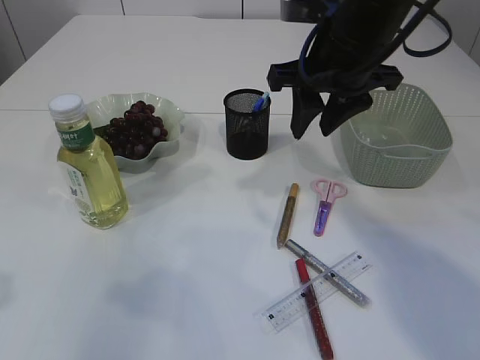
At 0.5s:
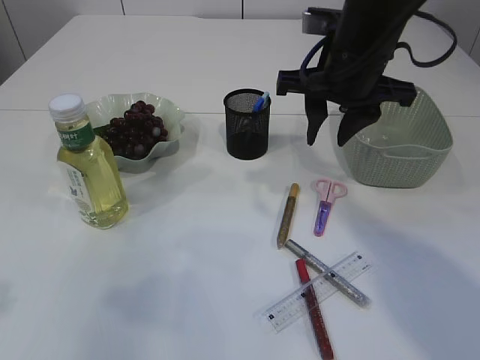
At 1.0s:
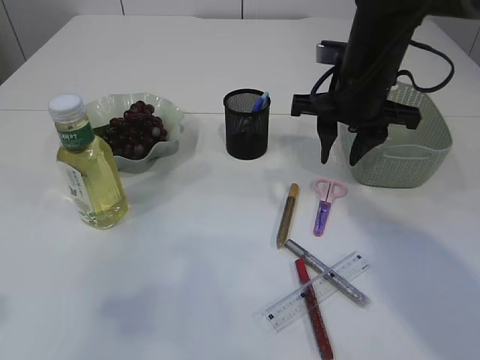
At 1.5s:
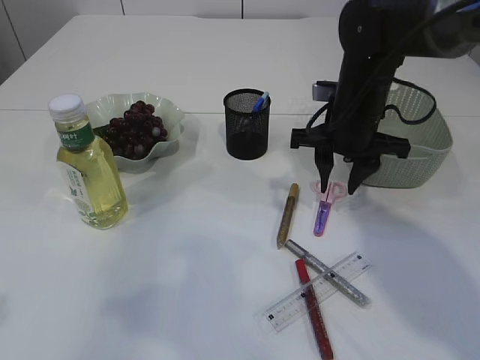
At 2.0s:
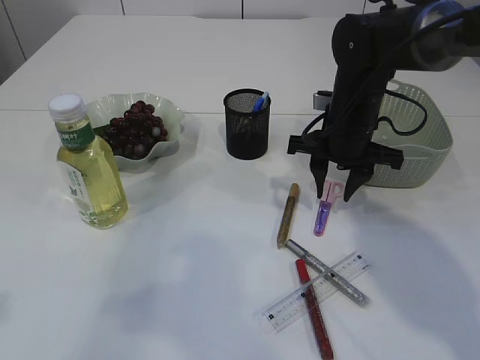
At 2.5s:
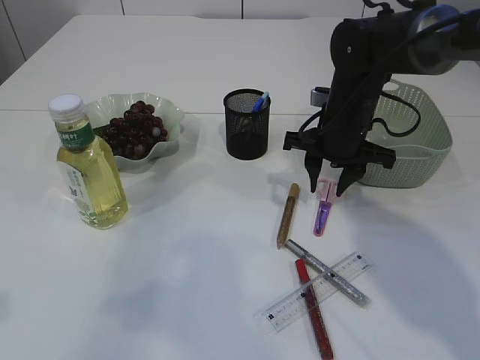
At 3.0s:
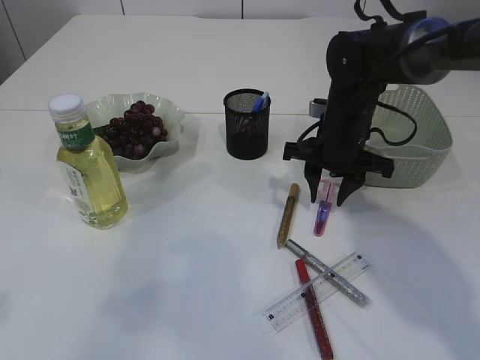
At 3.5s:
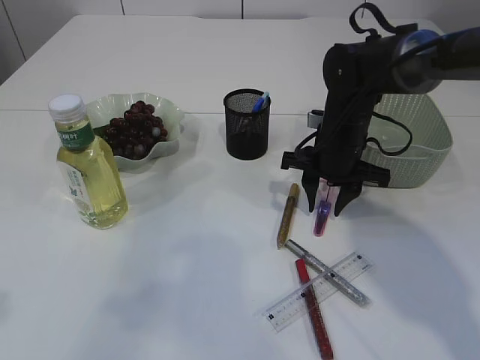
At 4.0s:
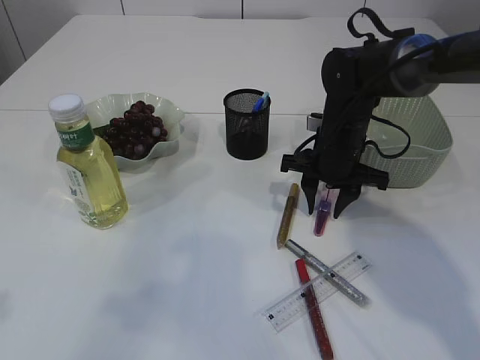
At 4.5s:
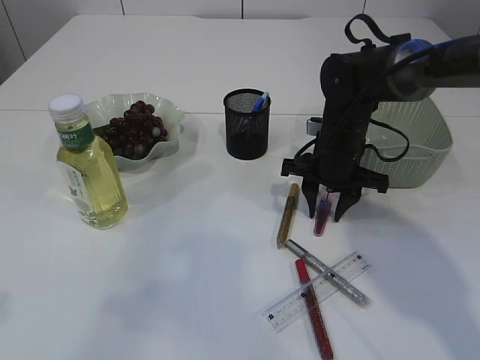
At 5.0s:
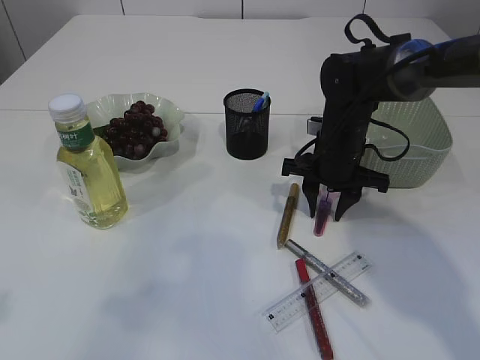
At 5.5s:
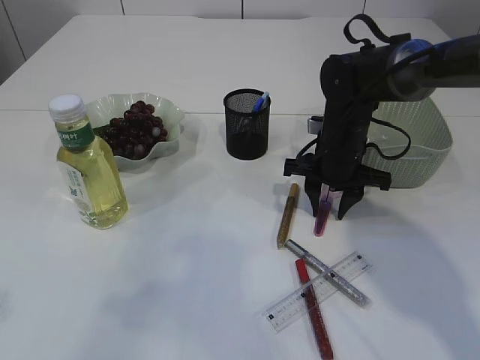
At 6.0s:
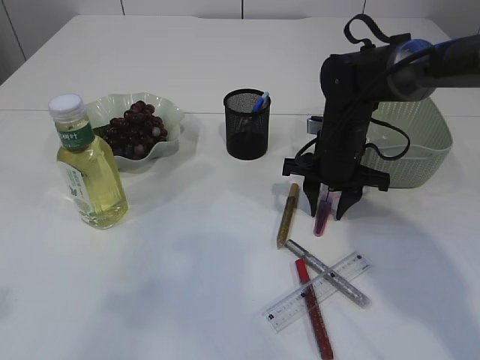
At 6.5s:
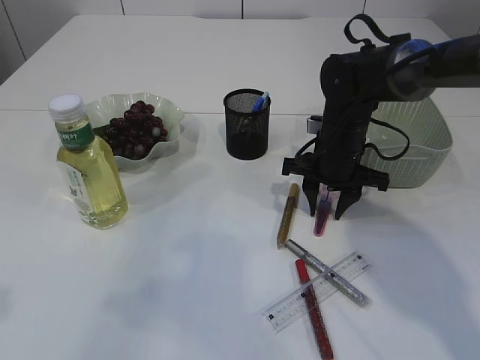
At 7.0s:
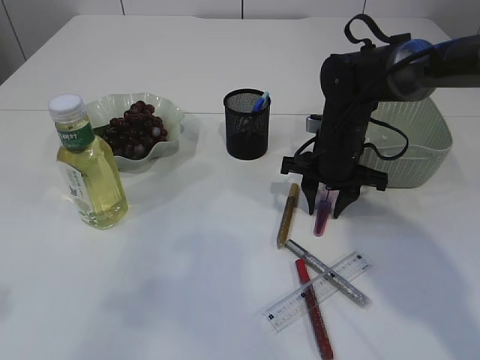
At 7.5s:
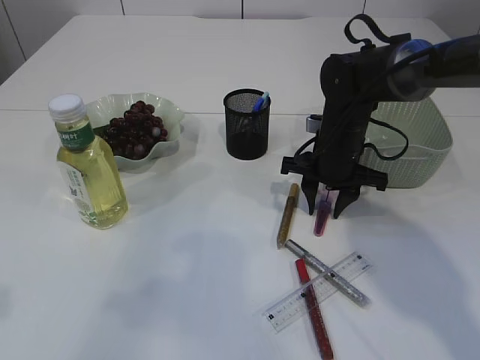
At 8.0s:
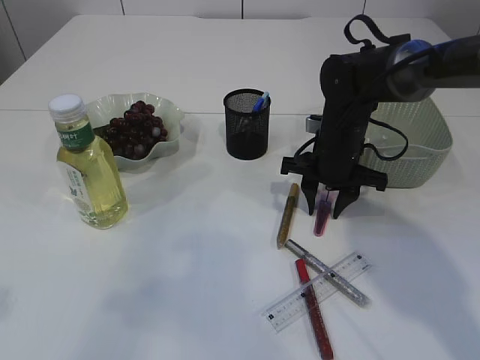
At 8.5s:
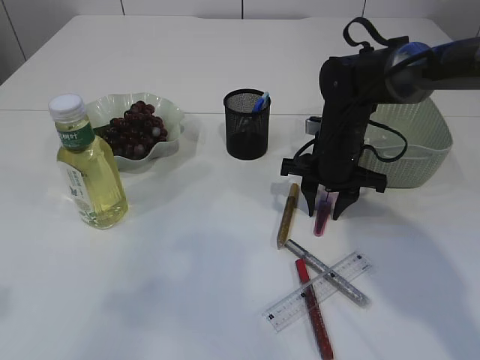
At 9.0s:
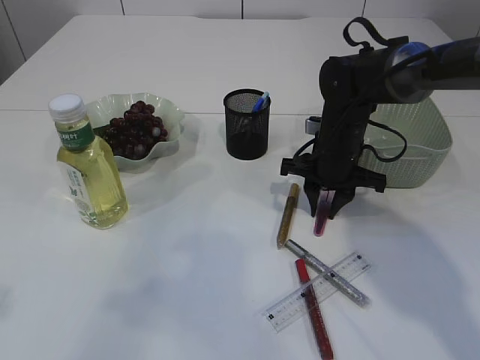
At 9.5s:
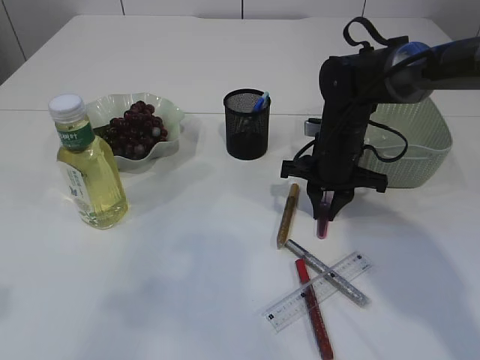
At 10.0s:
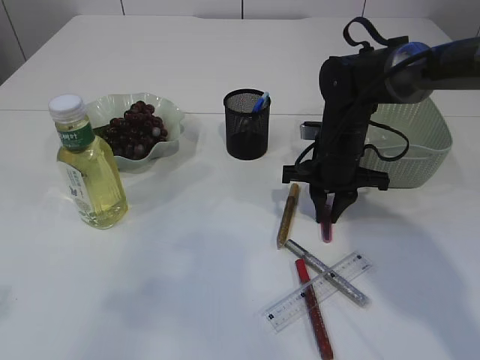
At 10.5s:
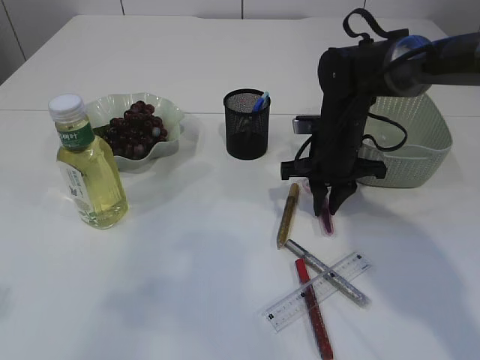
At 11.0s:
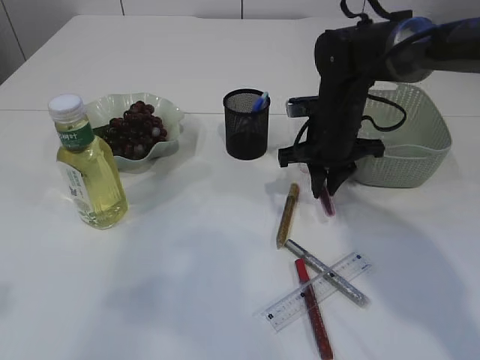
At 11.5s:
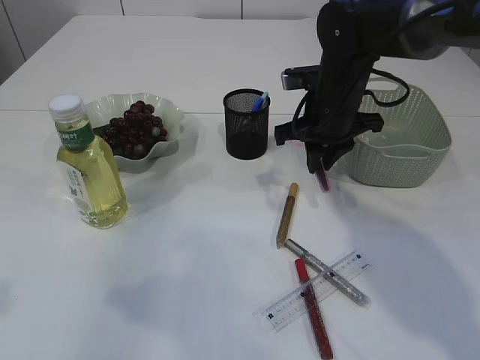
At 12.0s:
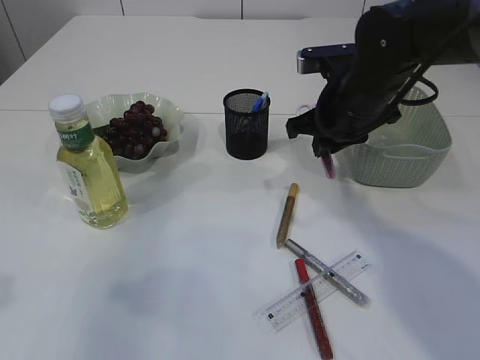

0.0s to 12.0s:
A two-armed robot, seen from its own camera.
Step, 0.0s to 11.5s: pick up the pink scissors.
0.0s to 2.0s: The right gripper heads downward, covering roughly 10 cm.
2.0s to 4.0s: The grippers move only a little.
4.0s to 8.0s: Both grippers stay put.
8.0s to 10.0s: The grippers stay close to where they were, moving slightly.
10.0s to 12.0s: The right gripper shifts approximately 10 cm upward.

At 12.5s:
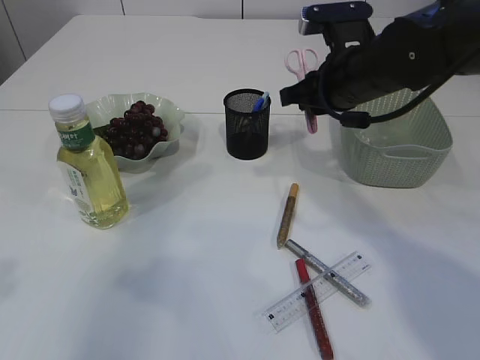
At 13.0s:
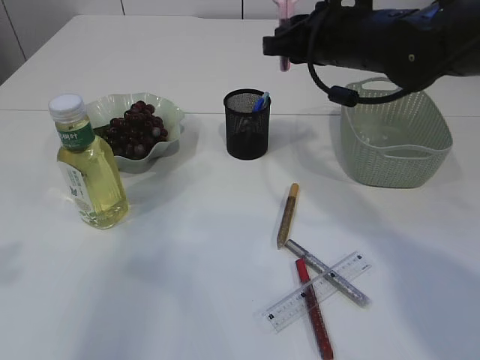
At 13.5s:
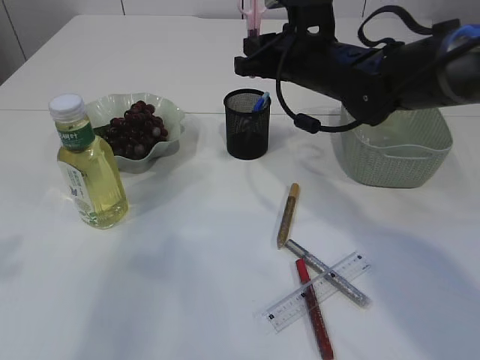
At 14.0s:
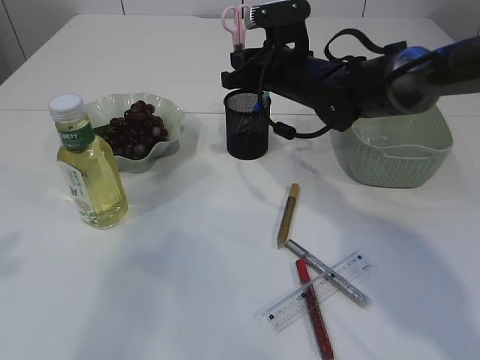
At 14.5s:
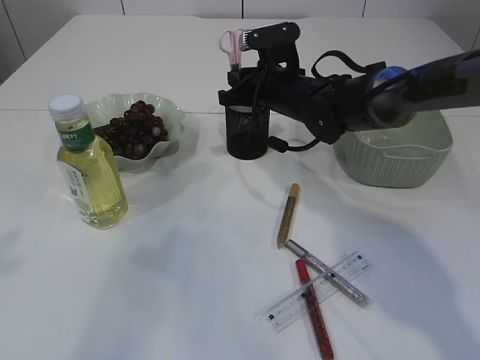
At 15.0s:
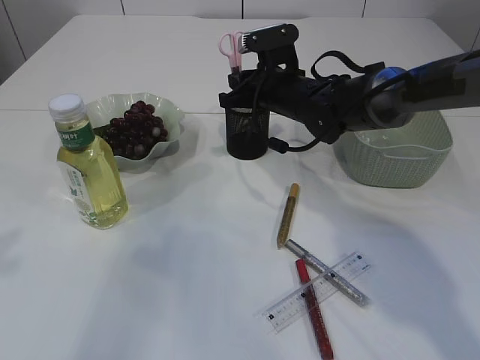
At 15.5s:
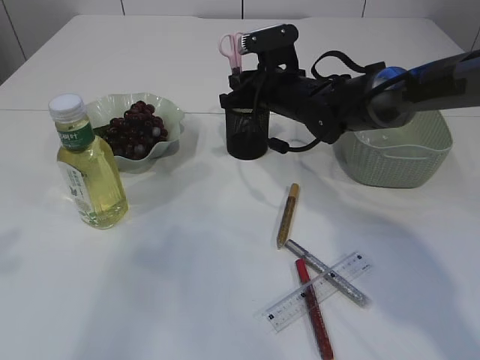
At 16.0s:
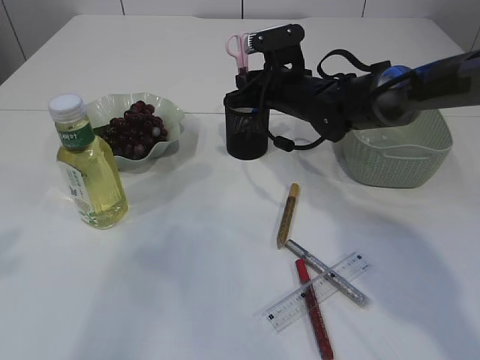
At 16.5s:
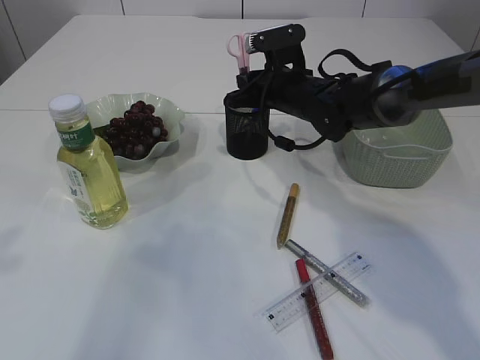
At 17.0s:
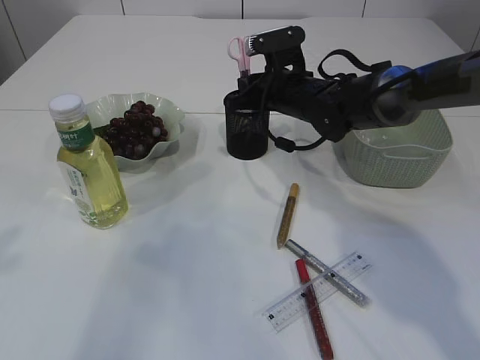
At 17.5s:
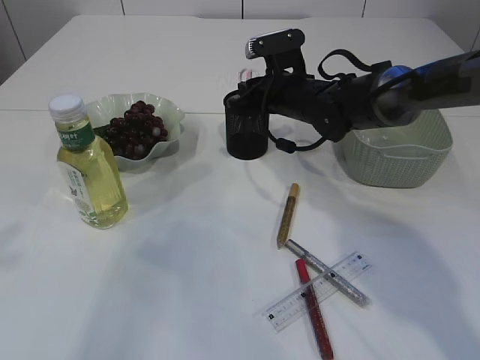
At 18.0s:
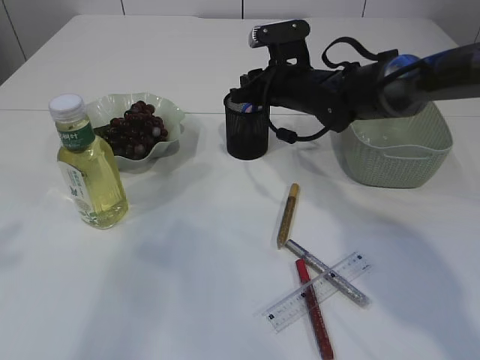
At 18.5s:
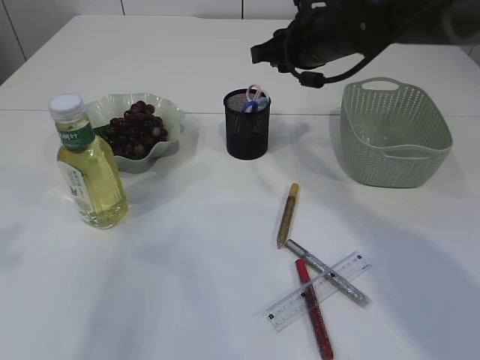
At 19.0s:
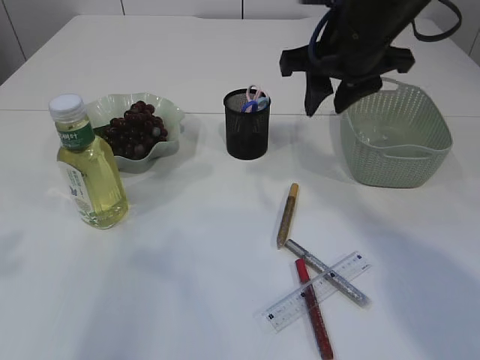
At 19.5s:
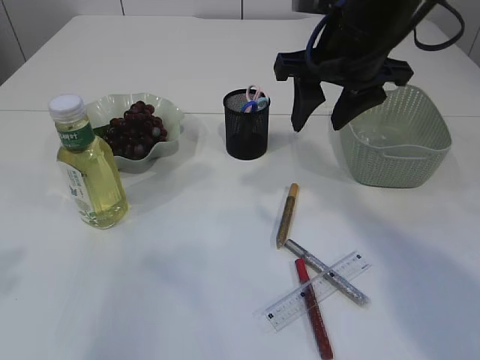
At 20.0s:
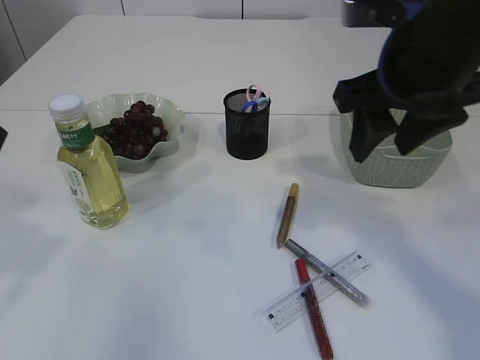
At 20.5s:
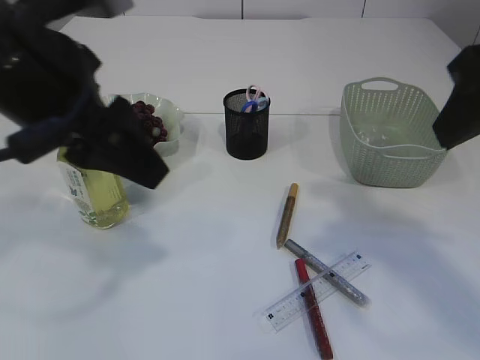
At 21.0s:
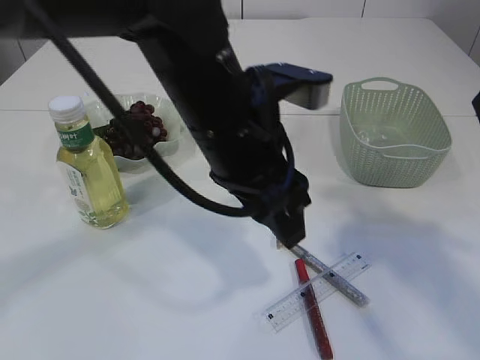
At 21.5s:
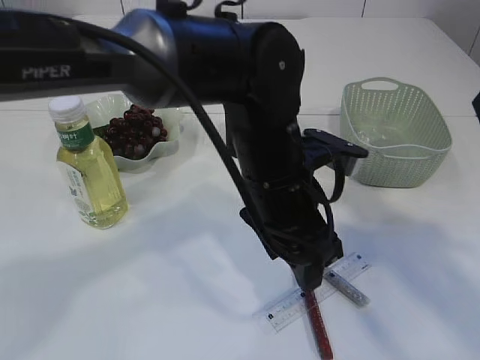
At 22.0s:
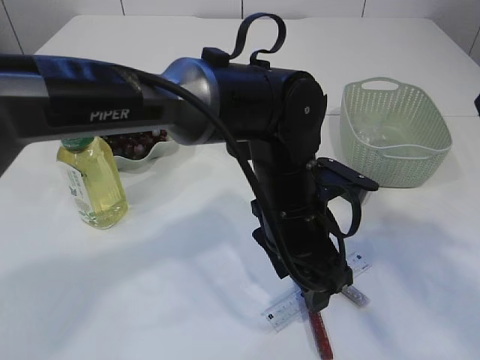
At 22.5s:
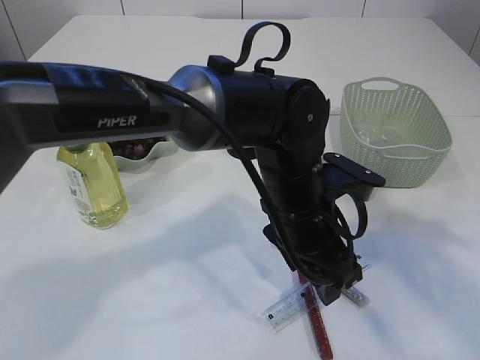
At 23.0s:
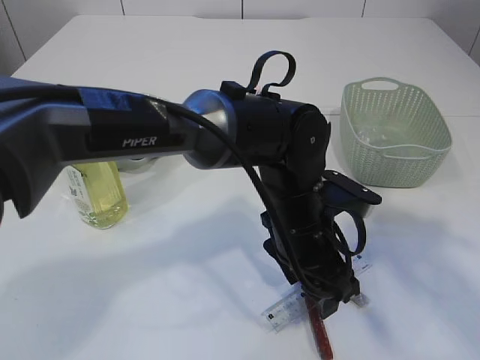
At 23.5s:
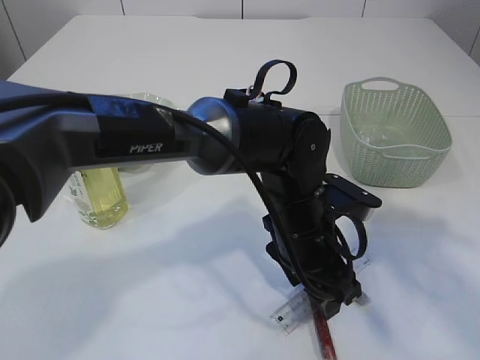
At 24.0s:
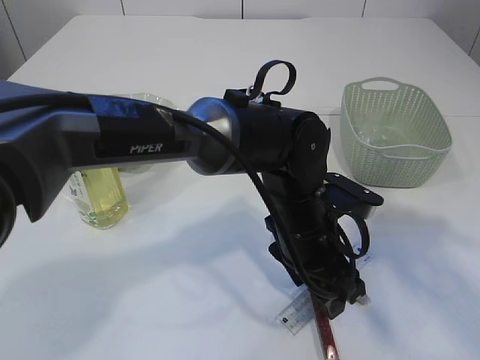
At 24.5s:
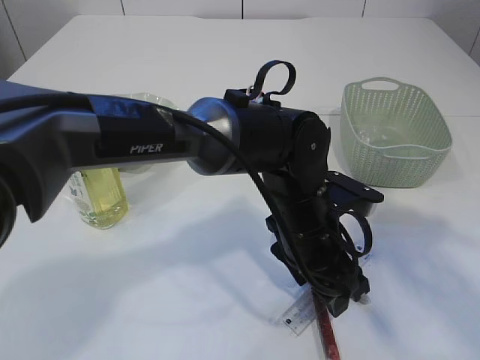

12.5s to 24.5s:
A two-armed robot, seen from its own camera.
Step, 12.5s to 18.5s: Place the blue knife into the pen holder.
12.5s to 14.5s: The right gripper moves forward, downward and to the left, approximately 15 cm.
14.5s to 16.5s: Neither gripper changes place.
16.5s to 18.5s: The right gripper shifts some 10 cm upward.
18.5s to 20.5s: The right gripper heads backward and upward, covering approximately 25 cm, and opens its fingers. Meanwhile the left gripper heads to the right and forward, covering approximately 15 cm.
20.5s to 22.5s: The left gripper moves to the right and downward, some 25 cm.
22.5s to 24.5s: There are only small adjustments of the grippers.

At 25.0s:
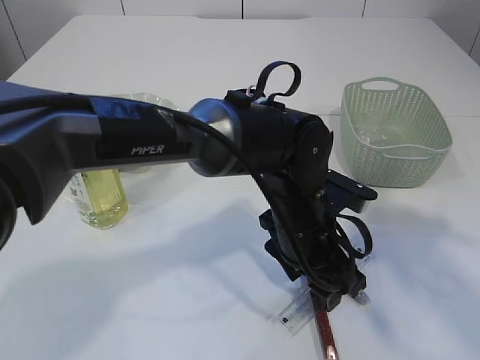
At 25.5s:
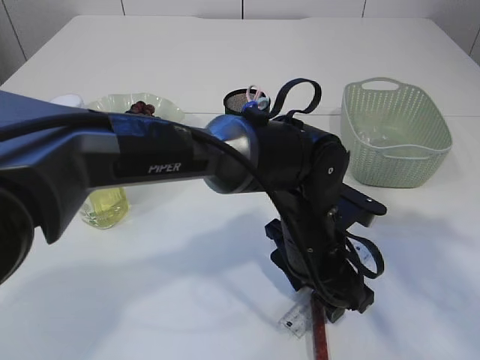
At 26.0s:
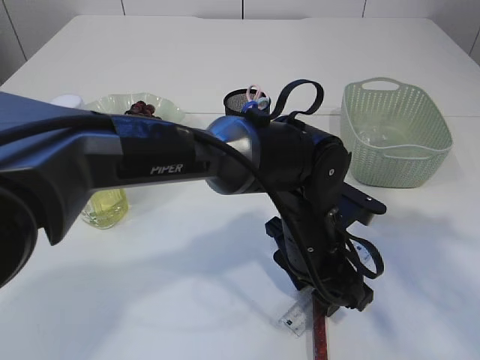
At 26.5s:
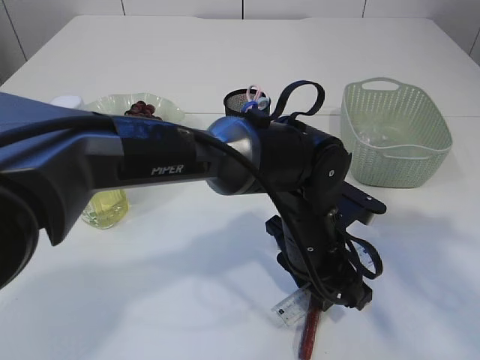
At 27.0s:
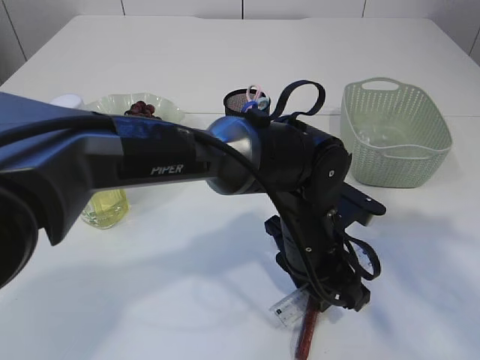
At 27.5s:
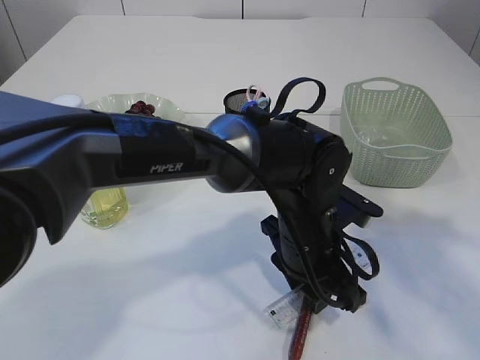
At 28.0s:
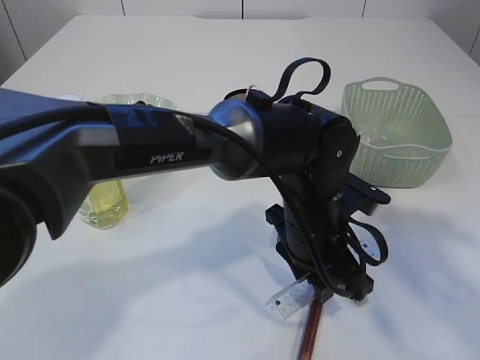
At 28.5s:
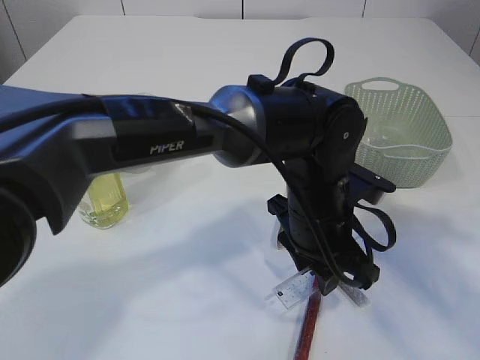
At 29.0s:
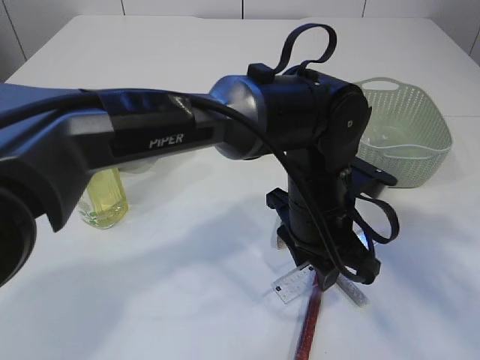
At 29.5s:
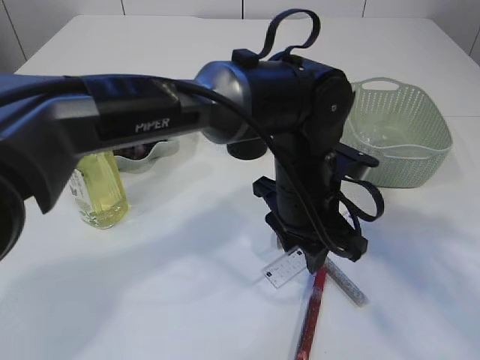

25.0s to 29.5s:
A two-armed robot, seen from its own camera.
25.0s to 27.0s: The left gripper closes.
27.0s to 29.5s: The left gripper moves upward, approximately 5 cm.
